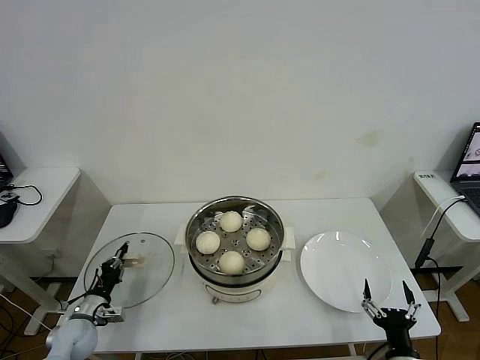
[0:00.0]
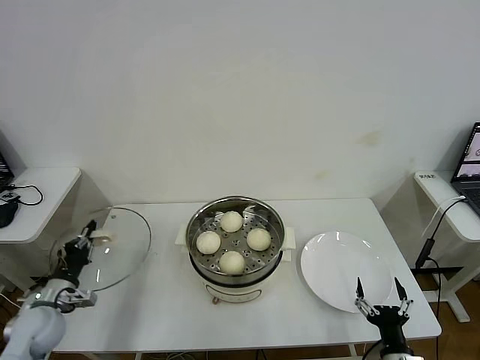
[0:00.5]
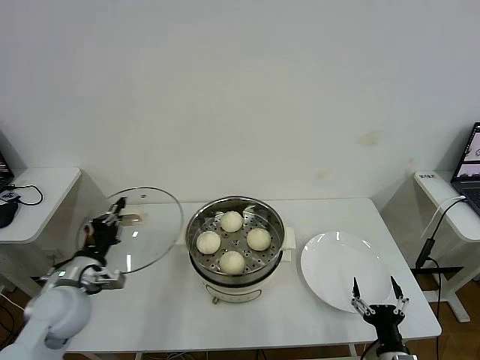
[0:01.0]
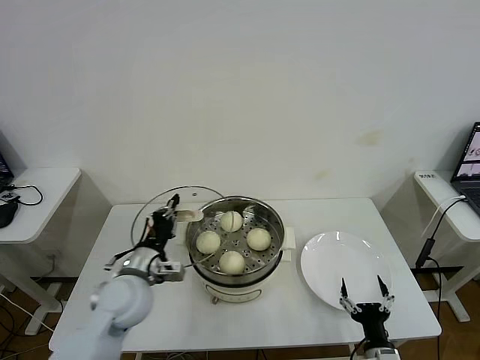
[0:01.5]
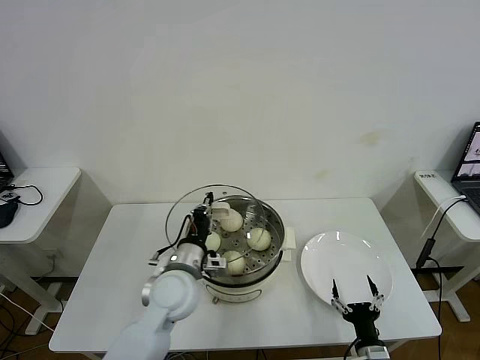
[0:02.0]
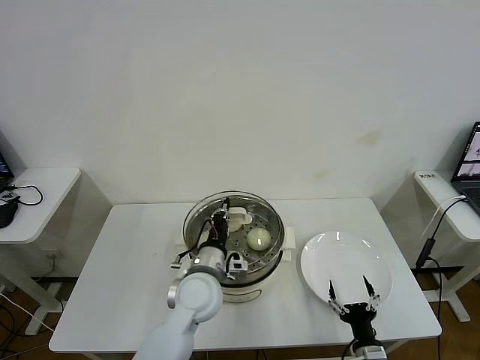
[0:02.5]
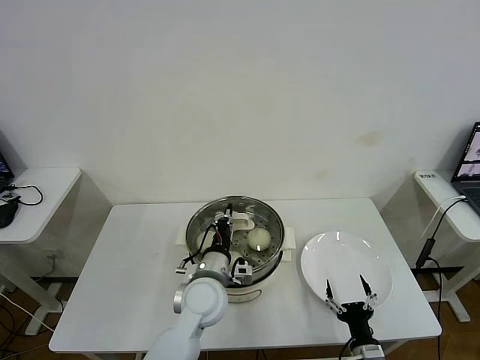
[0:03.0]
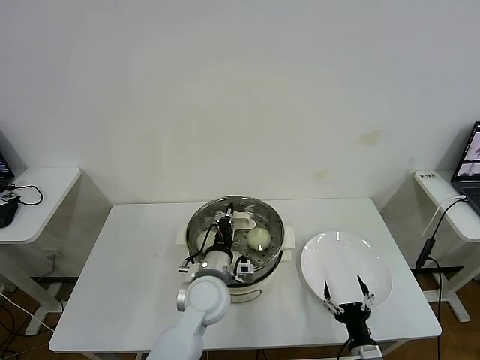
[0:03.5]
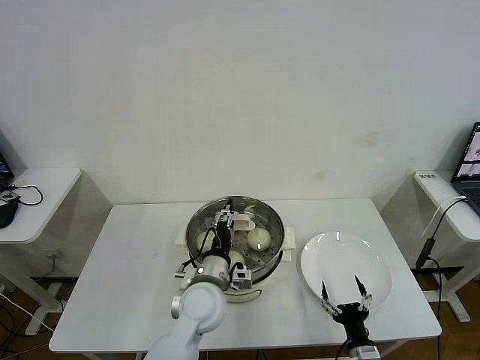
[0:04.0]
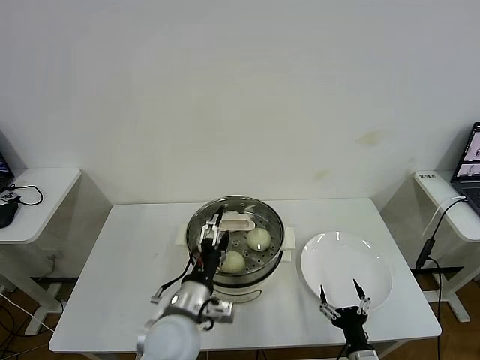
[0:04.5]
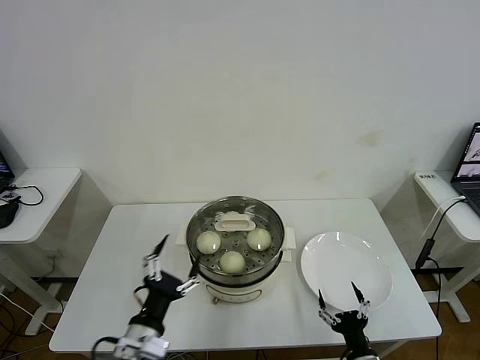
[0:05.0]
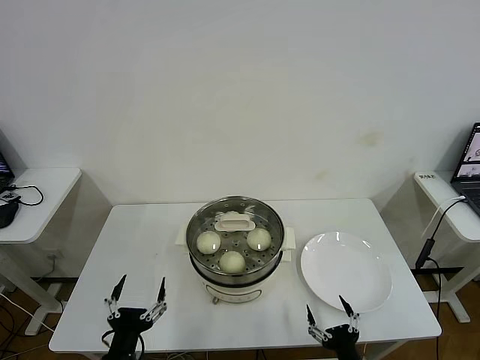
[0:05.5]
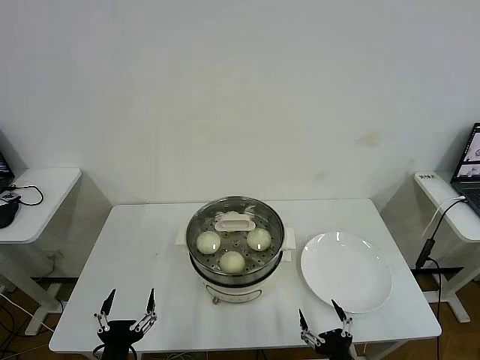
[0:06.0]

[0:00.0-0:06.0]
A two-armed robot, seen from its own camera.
Task of the whole recording: take steamed baozi put them in steamer then cover it.
Step, 0:00.5 to 0:04.0: Place the pot lid on the steamer with left gripper.
0:00.0 to 0:02.0: The right gripper changes place by approximately 5 cm. The left gripper travels to the right and upward by approximately 30 cm.
0:02.0 to 0:04.0: The left gripper heads to the right, covering roughly 5 cm, and opens its fingers.
0:04.0 to 0:06.0: The right gripper moves backward, about 5 cm; the left gripper heads backward and to the left, covering roughly 30 cm, and opens.

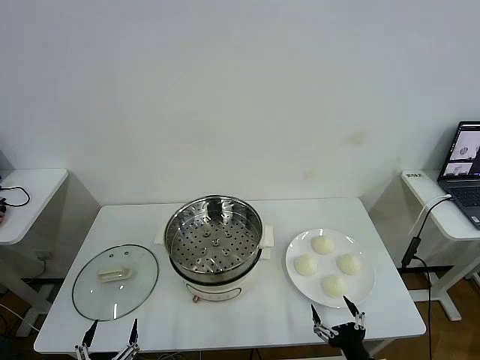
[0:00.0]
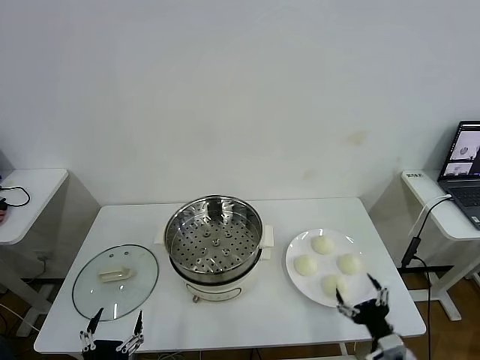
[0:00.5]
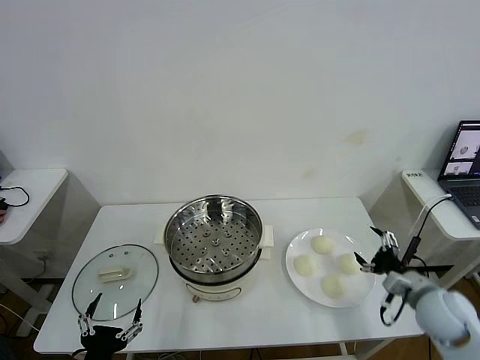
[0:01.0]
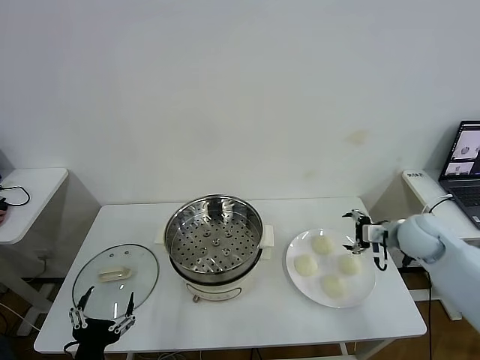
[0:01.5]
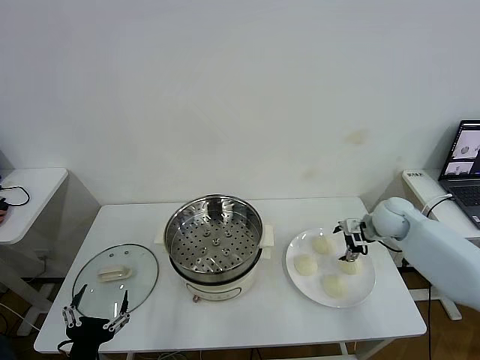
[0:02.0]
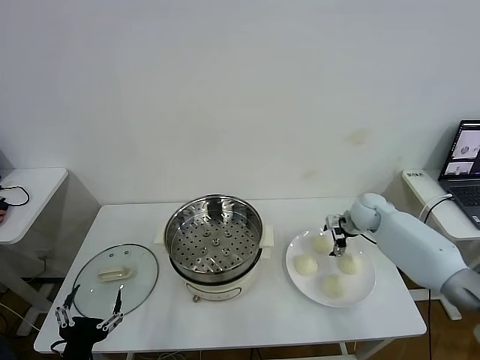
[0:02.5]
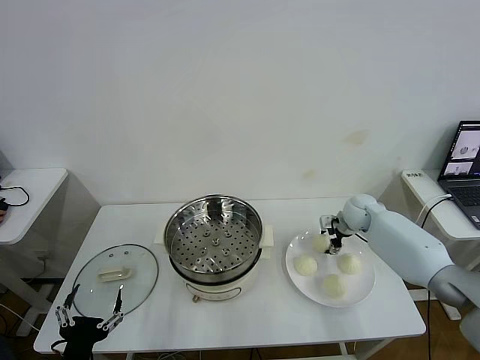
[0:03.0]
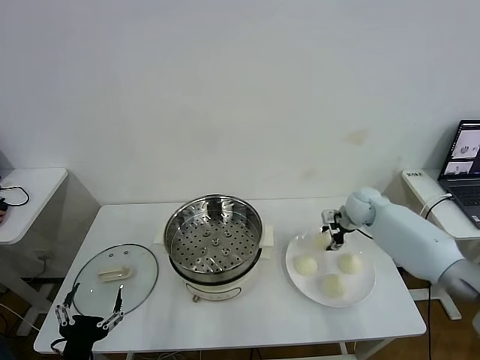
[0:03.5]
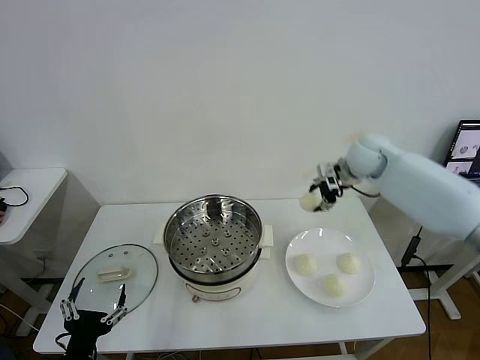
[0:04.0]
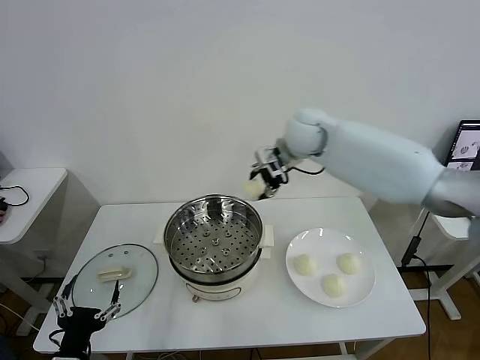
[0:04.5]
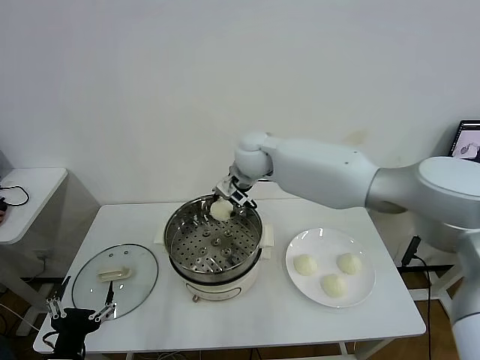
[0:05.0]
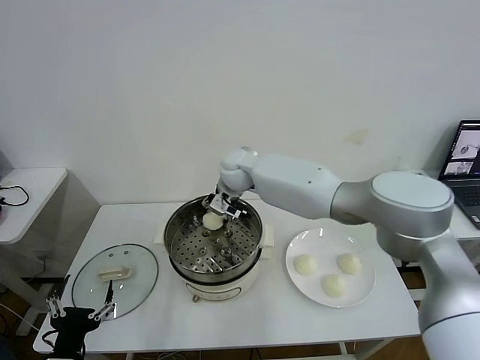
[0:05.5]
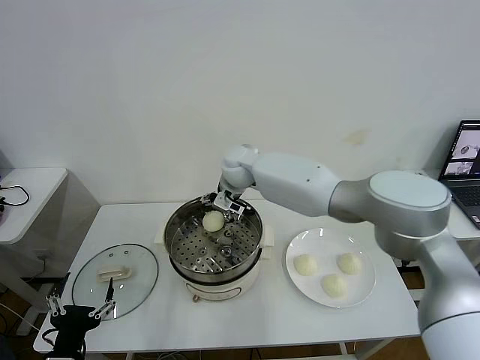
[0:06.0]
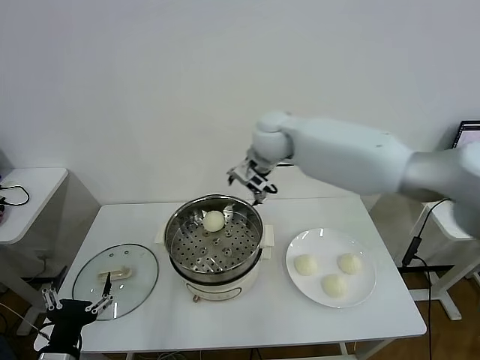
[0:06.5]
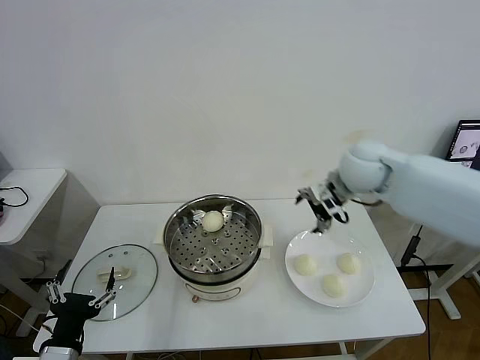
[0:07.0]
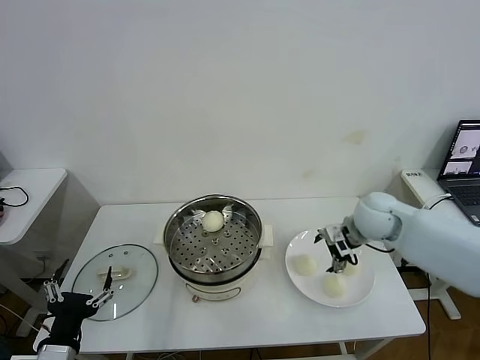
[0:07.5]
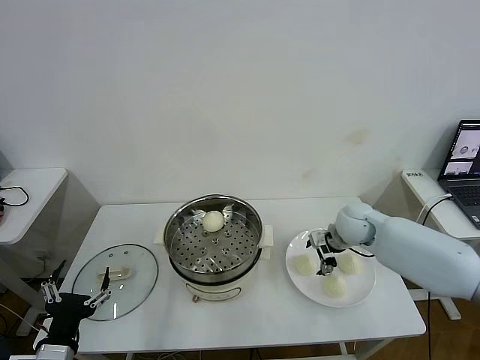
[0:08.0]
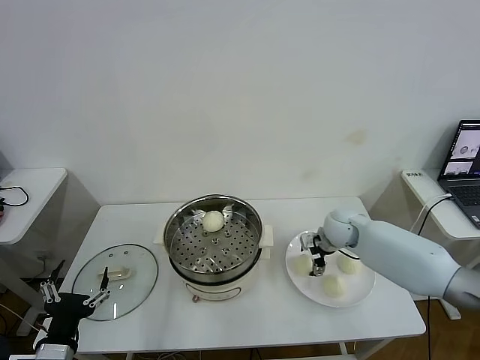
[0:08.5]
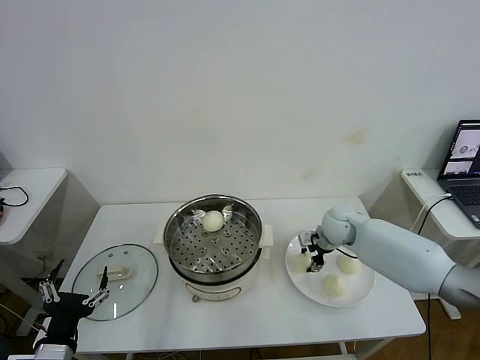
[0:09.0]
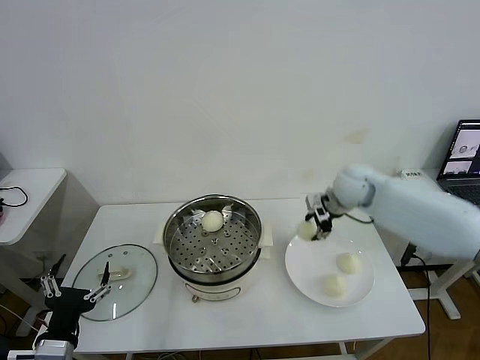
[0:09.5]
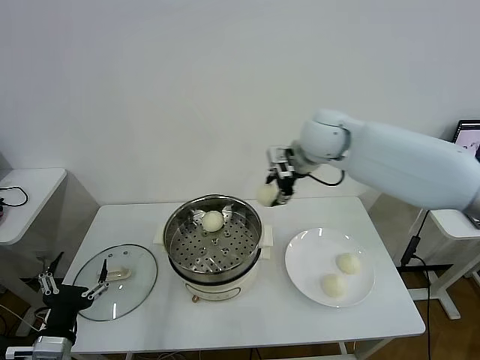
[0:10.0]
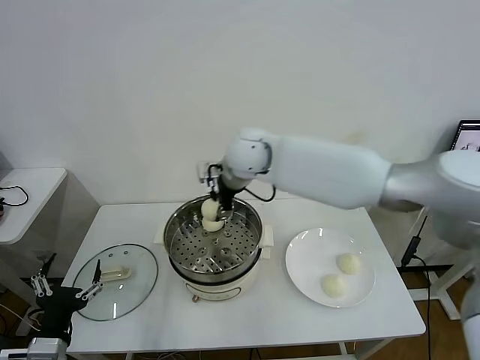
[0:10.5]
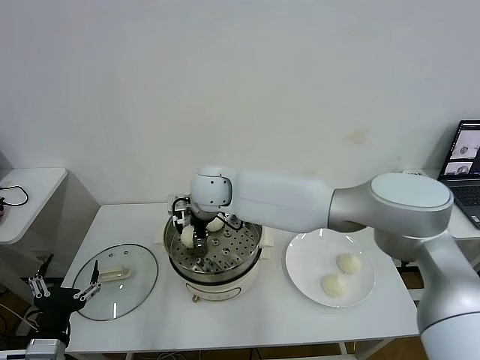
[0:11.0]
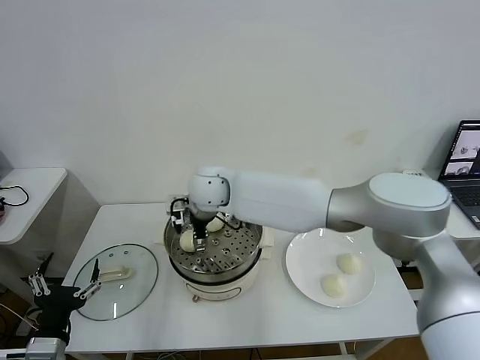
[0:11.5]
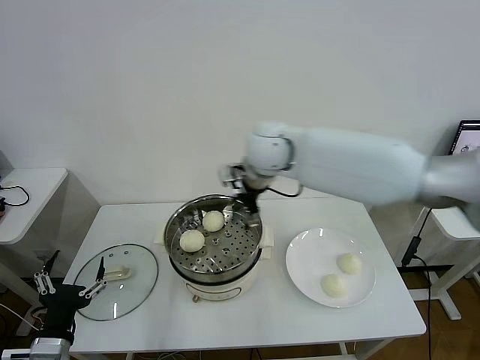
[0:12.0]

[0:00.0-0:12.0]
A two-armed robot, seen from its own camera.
Task of the whole recording: take steamed baozi put them in steamer then cover it.
Step, 0:00.0 to 0:03.0: Grasp the baozi in the plate with right gripper.
Step, 0:03.5 to 0:06.0: Place the baozi on the steamer with right gripper.
Step, 0:06.5 to 0:09.0: Grasp the baozi in the plate with right gripper.
Step, 0:09.5 to 0:11.5: Place the baozi on the steamer with right gripper.
0:02.0 to 0:04.0: The right gripper goes approximately 20 cm upward and to the left, and closes up.
0:04.0 to 0:06.0: The right gripper is displaced to the left by some 25 cm, and opens.
0:06.0 to 0:08.0: The right gripper travels to the right and downward by approximately 30 cm.
0:08.0 to 0:10.0: The right gripper is displaced upward and to the left by approximately 25 cm, and closes its fingers.
0:10.0 to 0:12.0: The right gripper moves some 20 cm to the left and comes back, and opens up.

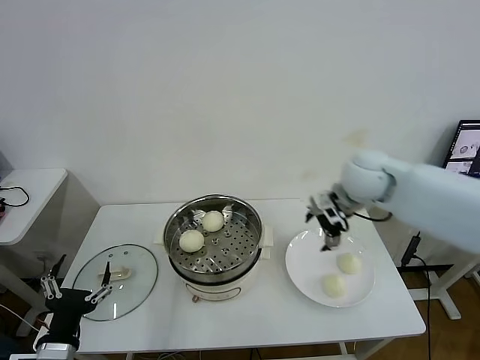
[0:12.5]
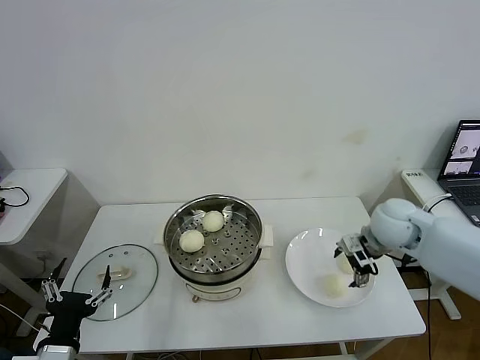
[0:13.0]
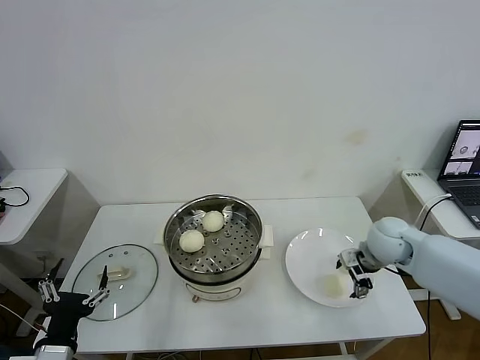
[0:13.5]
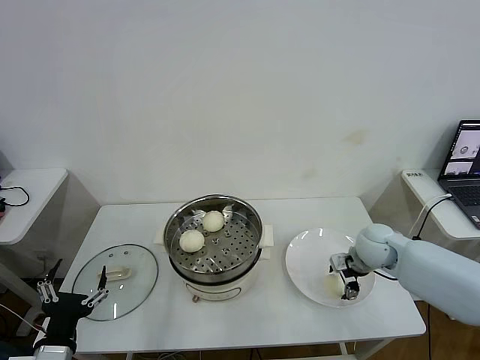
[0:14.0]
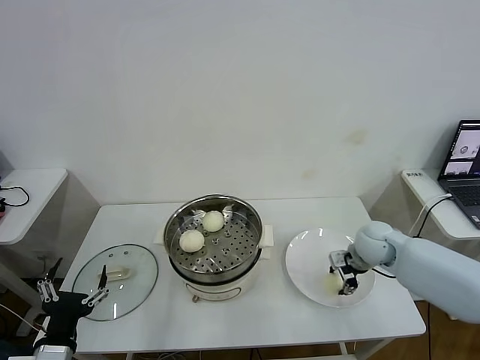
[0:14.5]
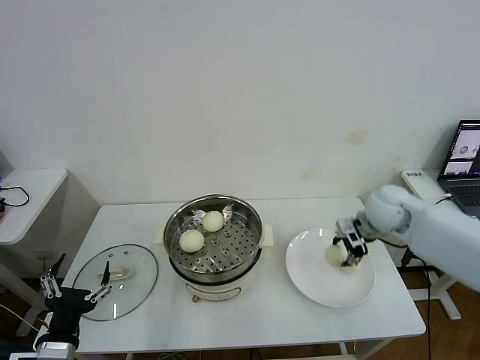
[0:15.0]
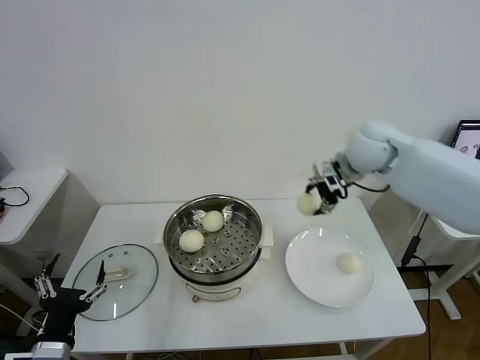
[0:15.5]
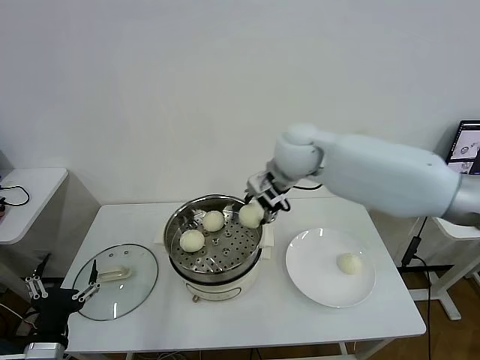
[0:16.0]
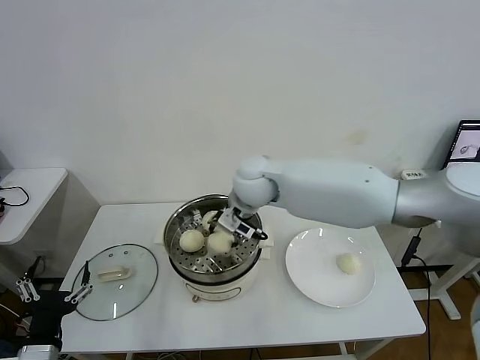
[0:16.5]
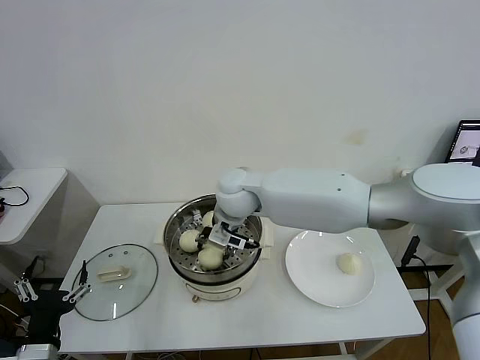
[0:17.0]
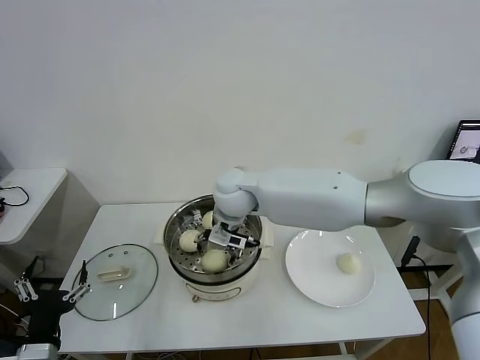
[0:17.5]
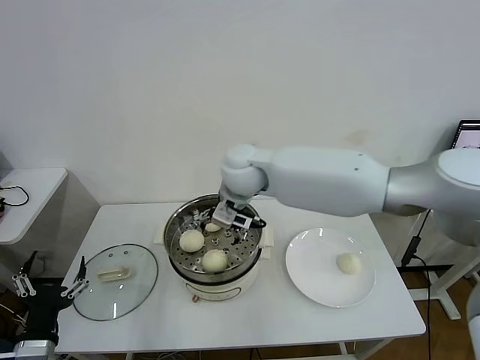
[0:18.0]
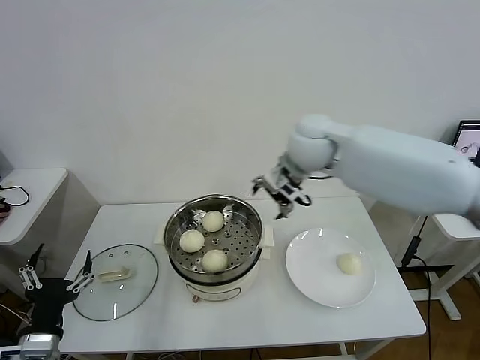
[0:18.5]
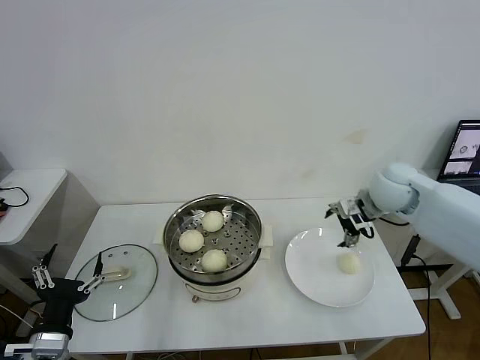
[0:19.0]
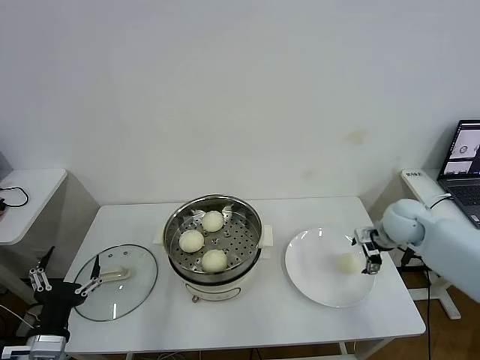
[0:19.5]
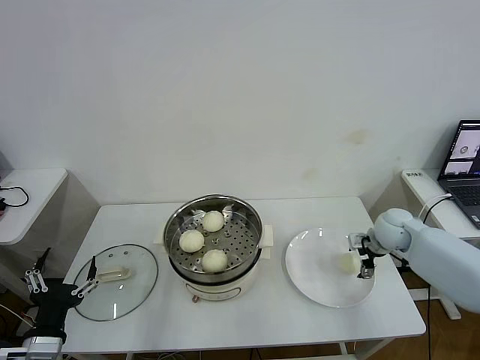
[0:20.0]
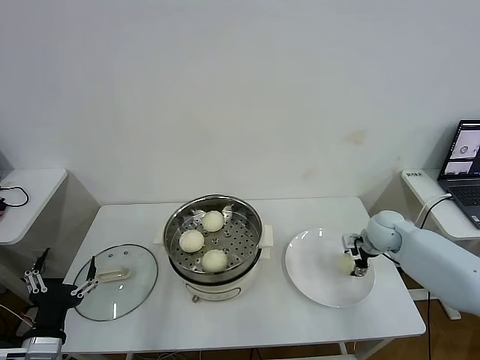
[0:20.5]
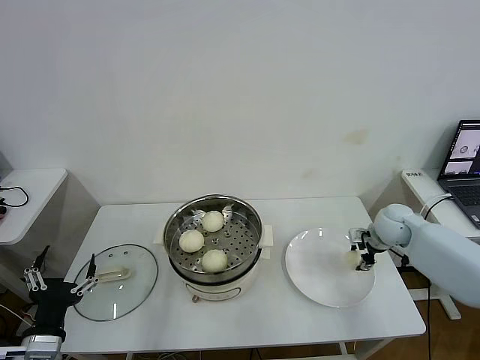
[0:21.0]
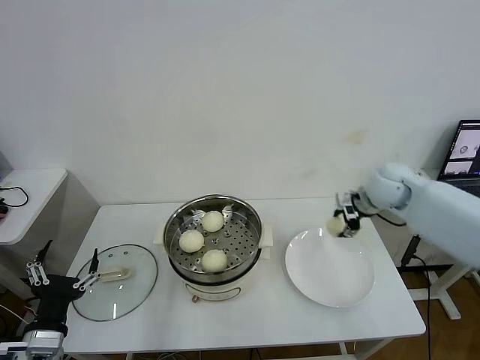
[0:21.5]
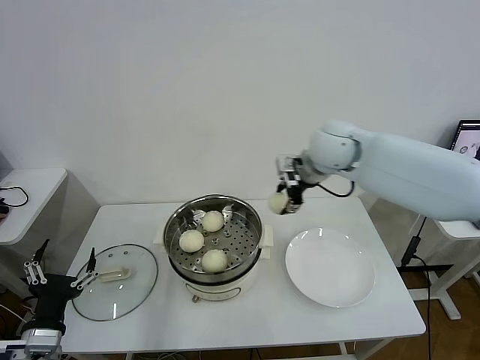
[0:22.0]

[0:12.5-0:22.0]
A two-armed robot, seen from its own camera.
Task of the whole recording: take steamed baozi put them in steamer then cover it.
Step, 0:12.5 to 0:14.0: Grasp the baozi in the plate with right gripper.
Step, 0:15.0 to 0:17.5: Place the baozi on the steamer with right gripper.
Step, 0:18.0 to 0:20.5: Grasp the baozi in the plate with right gripper.
0:12.5 to 0:14.5: The right gripper moves downward, about 15 cm, and closes.
0:14.5 to 0:16.5: The right gripper moves to the left and upward, approximately 35 cm.
0:16.5 to 0:18.0: The right gripper opens.
0:18.0 to 0:20.0: The right gripper goes about 40 cm to the right and downward.
0:20.0 to 0:22.0: The right gripper heads upward and to the left, covering about 30 cm, and closes its fingers.
